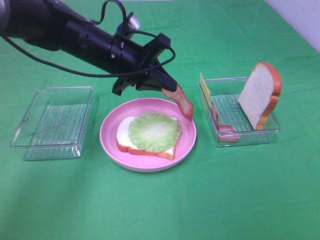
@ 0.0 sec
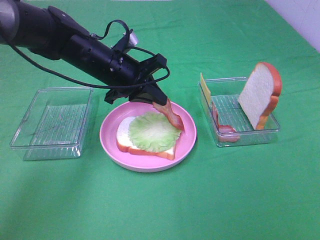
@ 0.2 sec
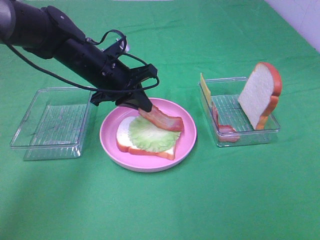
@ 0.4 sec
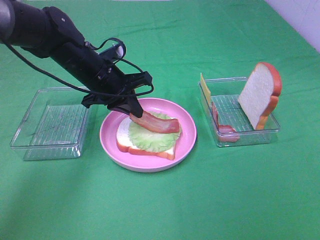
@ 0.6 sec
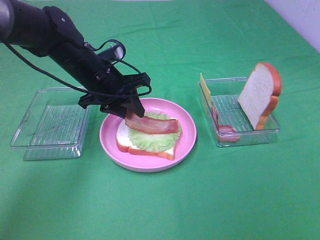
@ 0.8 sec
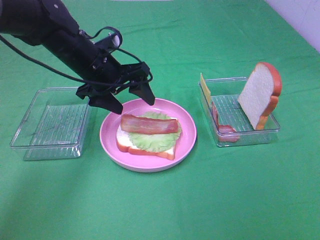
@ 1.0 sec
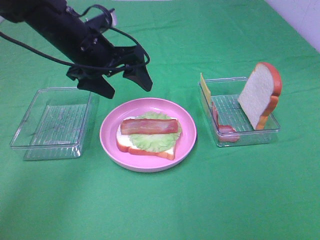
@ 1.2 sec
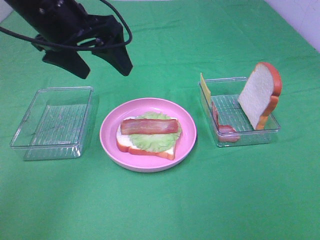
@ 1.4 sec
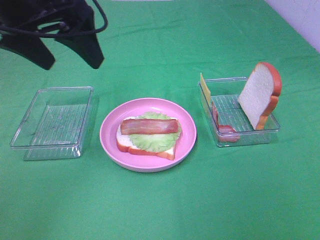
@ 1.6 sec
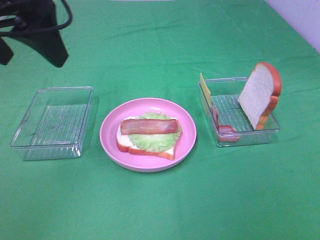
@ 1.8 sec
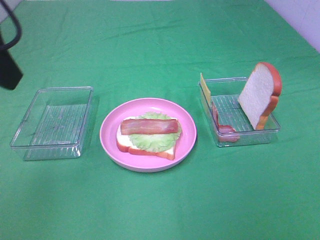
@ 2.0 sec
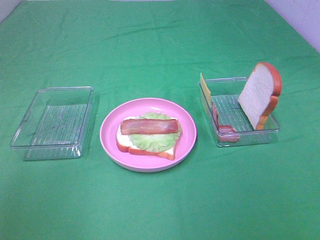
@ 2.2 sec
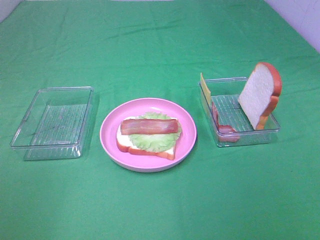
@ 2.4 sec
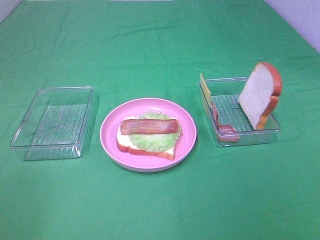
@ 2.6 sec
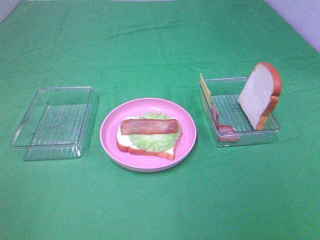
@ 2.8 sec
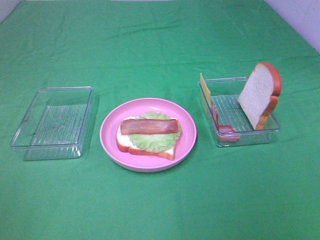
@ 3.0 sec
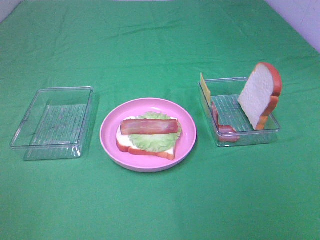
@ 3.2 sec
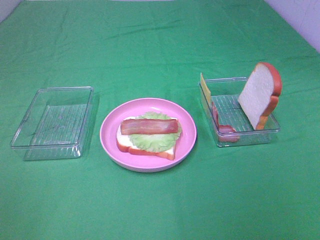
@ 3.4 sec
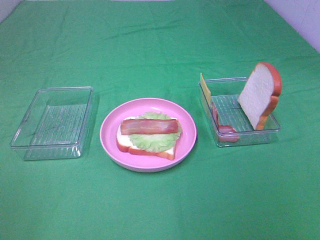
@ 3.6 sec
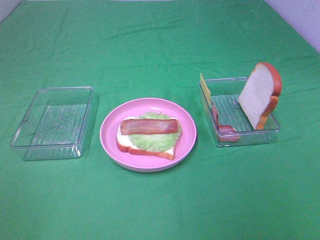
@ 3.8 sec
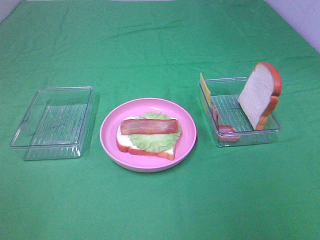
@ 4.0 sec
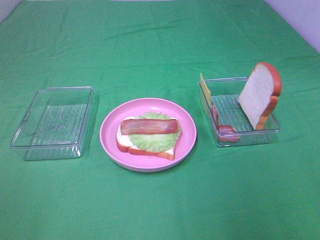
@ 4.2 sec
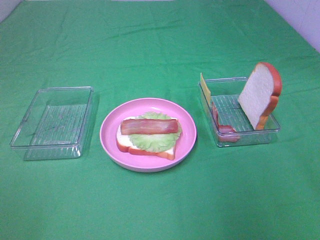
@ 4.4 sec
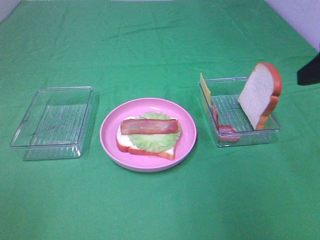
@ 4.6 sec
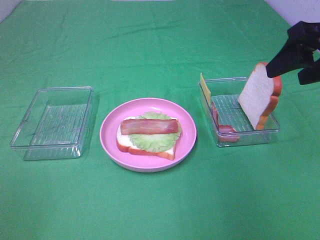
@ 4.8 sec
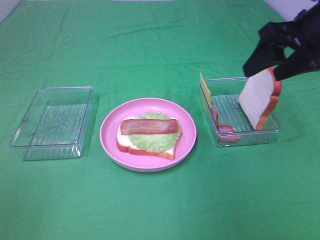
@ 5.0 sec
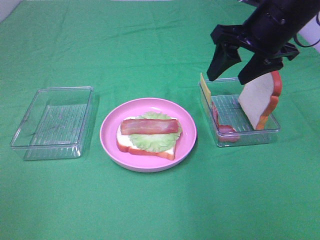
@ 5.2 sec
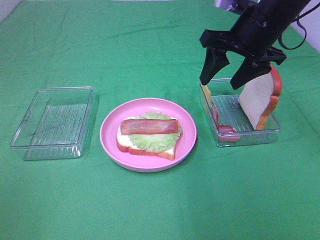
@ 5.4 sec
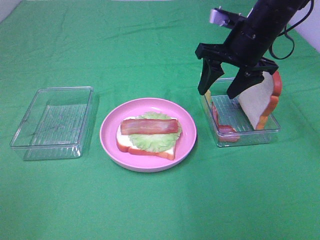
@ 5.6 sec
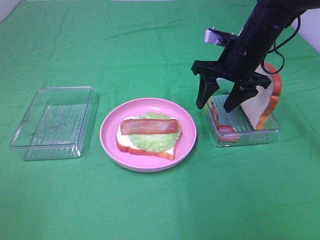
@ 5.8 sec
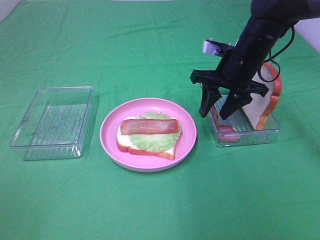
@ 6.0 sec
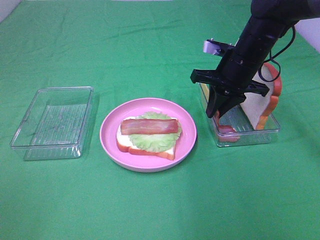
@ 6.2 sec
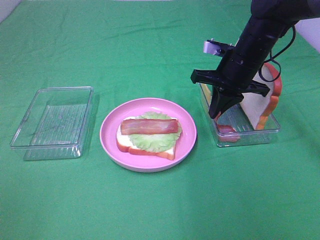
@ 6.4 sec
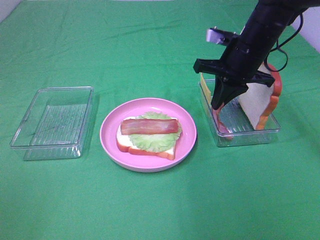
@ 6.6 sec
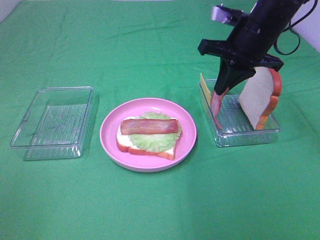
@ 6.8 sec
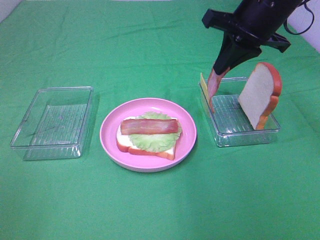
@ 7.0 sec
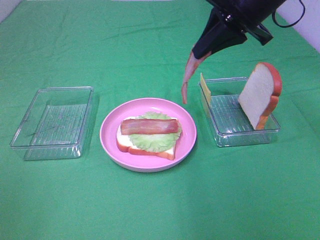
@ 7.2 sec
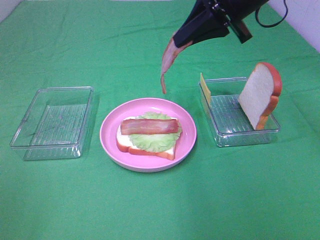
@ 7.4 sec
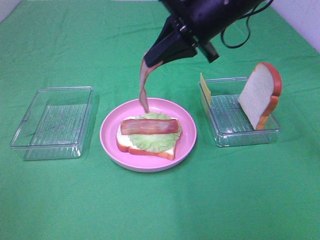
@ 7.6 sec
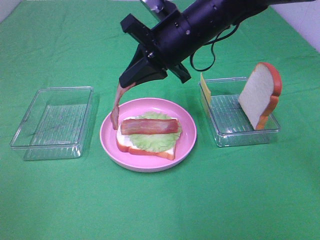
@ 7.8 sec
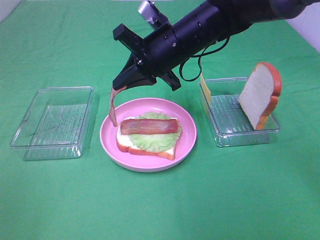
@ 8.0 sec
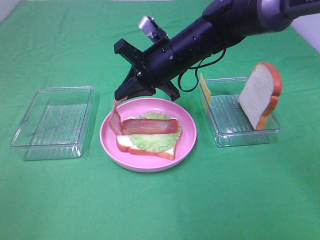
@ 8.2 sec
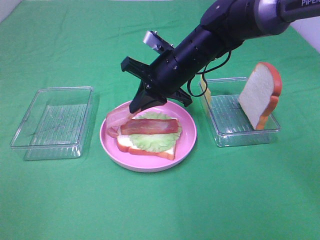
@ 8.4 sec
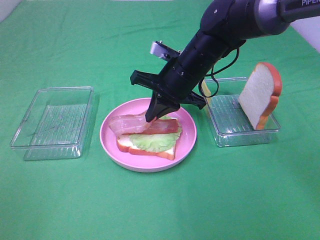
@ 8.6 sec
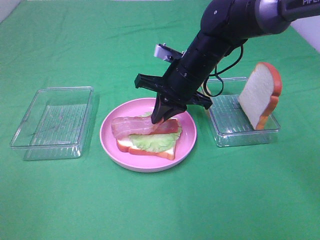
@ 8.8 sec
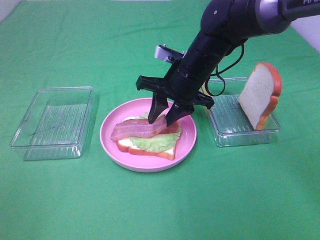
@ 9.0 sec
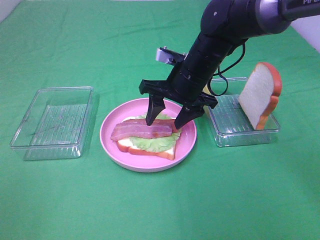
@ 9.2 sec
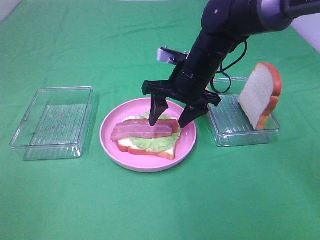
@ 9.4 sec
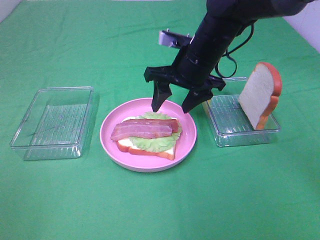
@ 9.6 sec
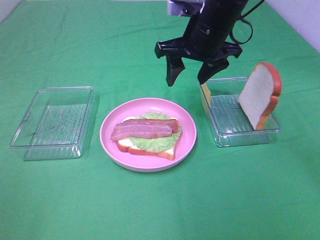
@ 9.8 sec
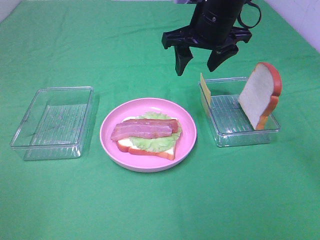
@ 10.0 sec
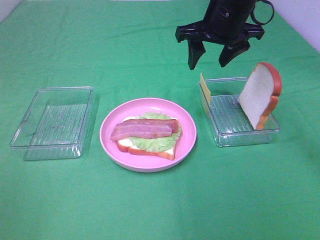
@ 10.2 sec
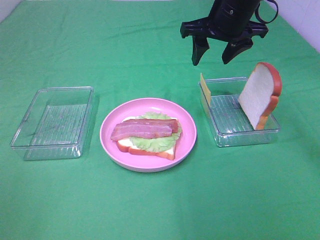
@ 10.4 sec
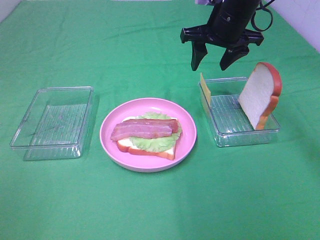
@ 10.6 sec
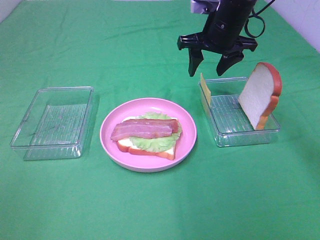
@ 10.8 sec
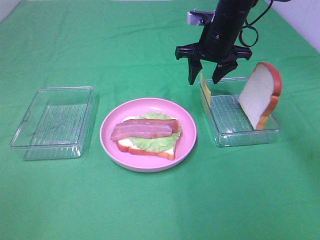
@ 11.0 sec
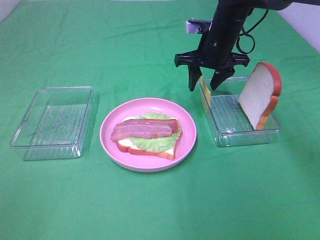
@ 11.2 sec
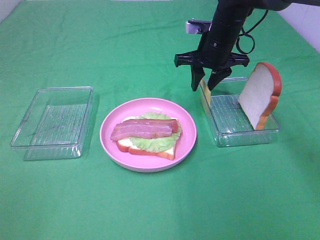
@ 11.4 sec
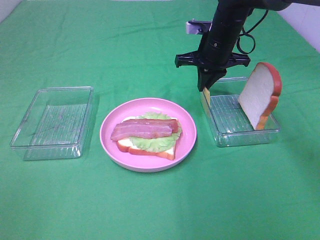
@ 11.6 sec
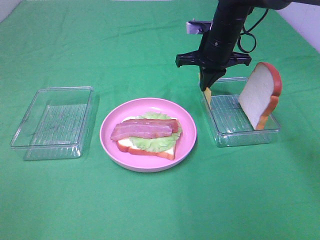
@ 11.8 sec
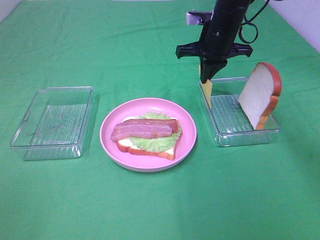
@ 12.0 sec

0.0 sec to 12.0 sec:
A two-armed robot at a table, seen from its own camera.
Task of the whole recording: Make sandwiches.
Step, 1.2 sec to 6.4 sec: Right hand:grab the bacon.
Step, 6.6 sec to 9.4 sec: Right hand:place bacon on bacon.
Step, 9.6 sec to 12.0 sec: Right hand:grab the cheese slice.
0.0 sec to 1.6 sec: The left gripper travels upward, to the left and backward by roughly 20 cm, and opens.
1.6 sec to 3.0 sec: The left gripper is displaced backward and to the left by about 35 cm.
4.4 sec to 6.0 sec: The right gripper goes some 30 cm forward, downward and to the left.
6.0 sec to 7.6 sec: The right gripper moves upward and to the left, about 15 cm, and closes its fingers.
7.6 sec to 9.0 sec: The right gripper goes roughly 10 cm downward, and opens its fingers.
9.0 sec to 10.4 sec: The right gripper heads upward and to the right, covering about 10 cm.
10.4 sec to 12.0 sec: The right gripper heads downward, covering about 5 cm, and closes its fingers.

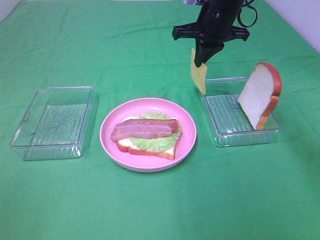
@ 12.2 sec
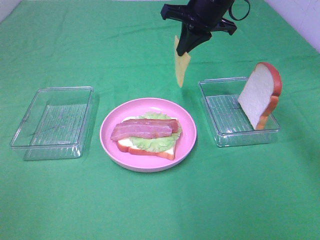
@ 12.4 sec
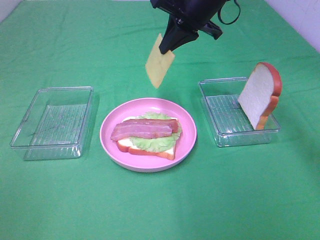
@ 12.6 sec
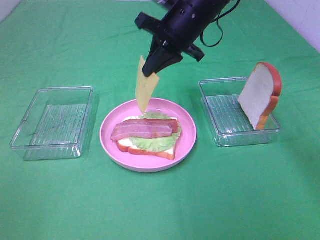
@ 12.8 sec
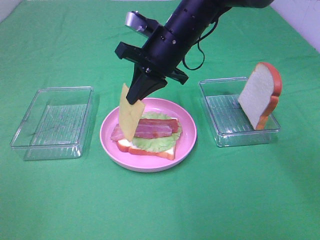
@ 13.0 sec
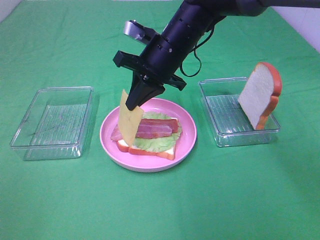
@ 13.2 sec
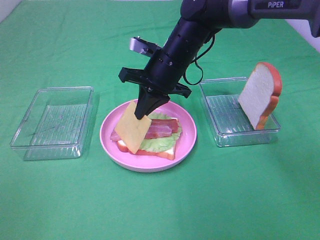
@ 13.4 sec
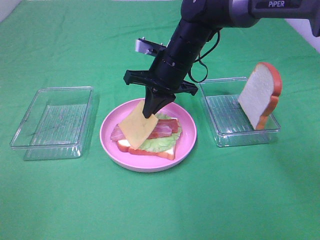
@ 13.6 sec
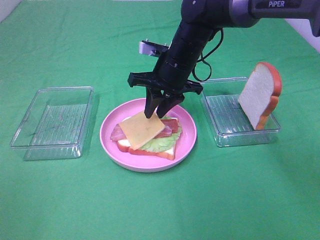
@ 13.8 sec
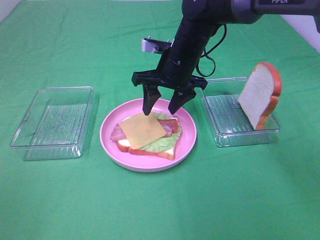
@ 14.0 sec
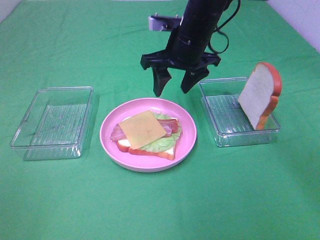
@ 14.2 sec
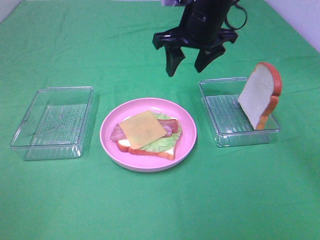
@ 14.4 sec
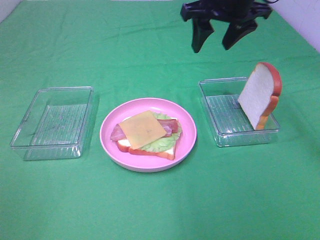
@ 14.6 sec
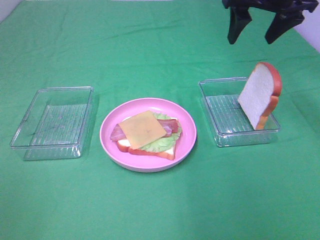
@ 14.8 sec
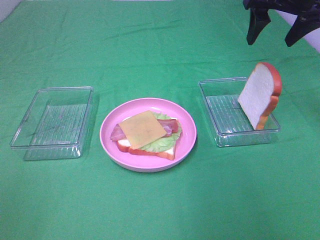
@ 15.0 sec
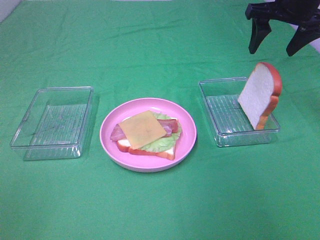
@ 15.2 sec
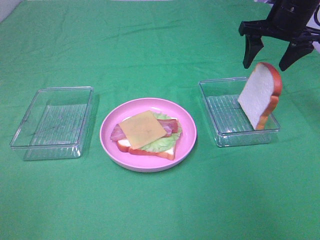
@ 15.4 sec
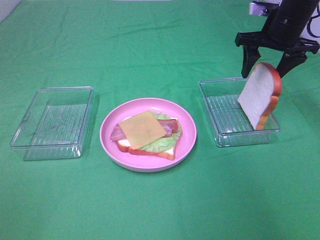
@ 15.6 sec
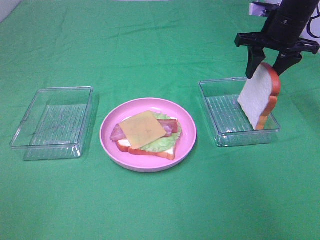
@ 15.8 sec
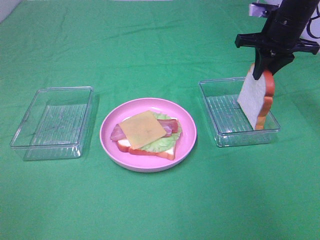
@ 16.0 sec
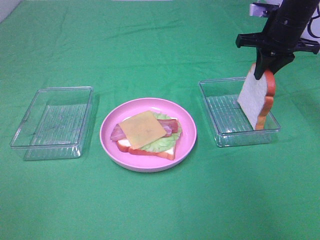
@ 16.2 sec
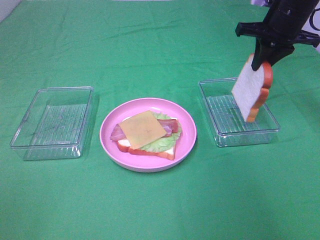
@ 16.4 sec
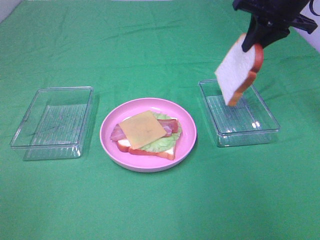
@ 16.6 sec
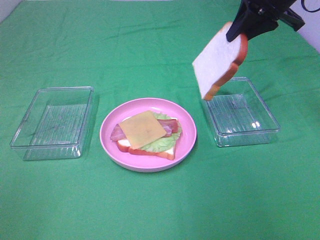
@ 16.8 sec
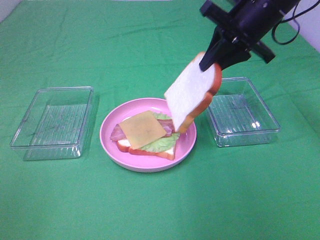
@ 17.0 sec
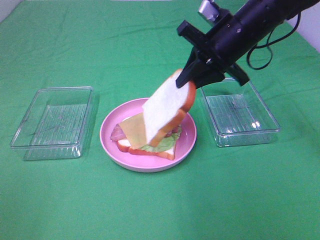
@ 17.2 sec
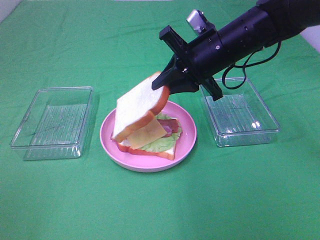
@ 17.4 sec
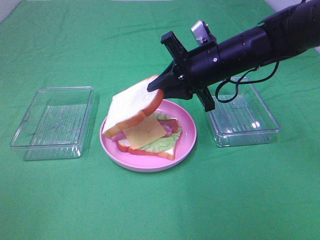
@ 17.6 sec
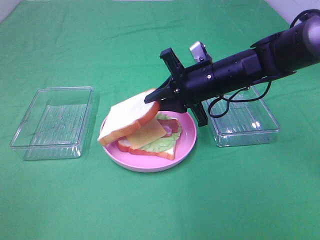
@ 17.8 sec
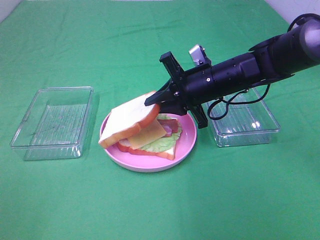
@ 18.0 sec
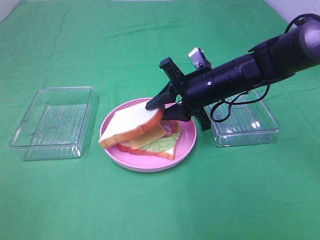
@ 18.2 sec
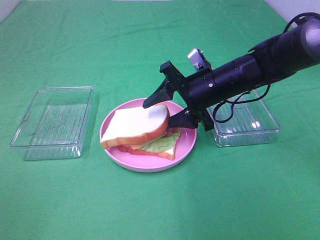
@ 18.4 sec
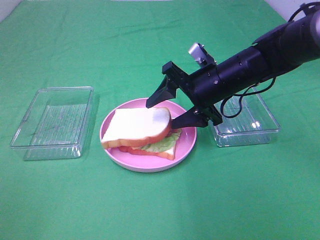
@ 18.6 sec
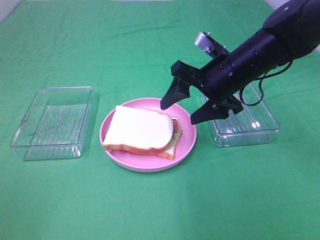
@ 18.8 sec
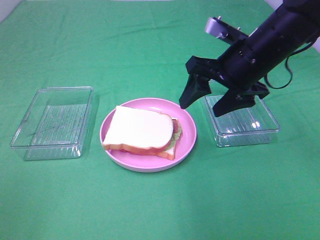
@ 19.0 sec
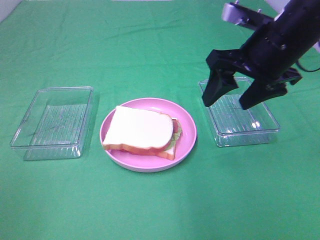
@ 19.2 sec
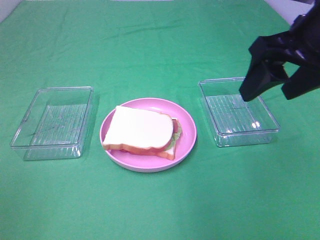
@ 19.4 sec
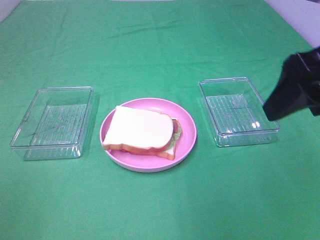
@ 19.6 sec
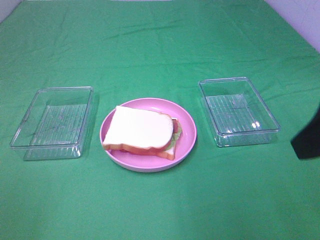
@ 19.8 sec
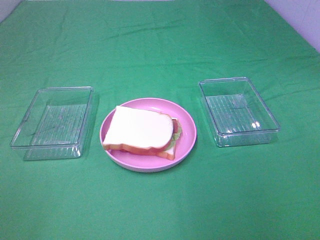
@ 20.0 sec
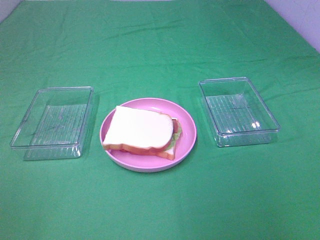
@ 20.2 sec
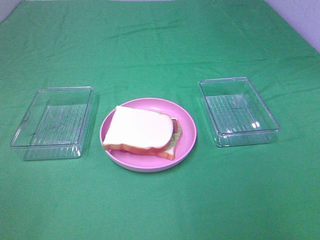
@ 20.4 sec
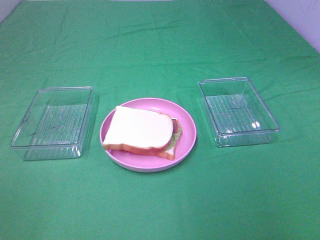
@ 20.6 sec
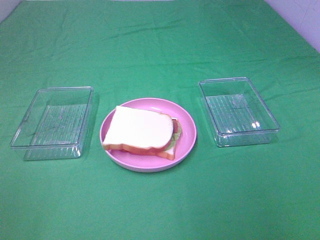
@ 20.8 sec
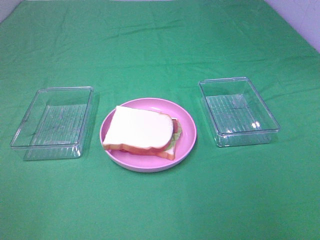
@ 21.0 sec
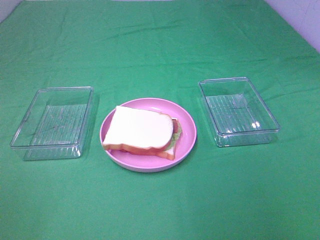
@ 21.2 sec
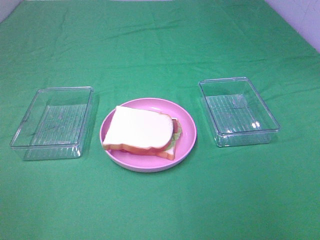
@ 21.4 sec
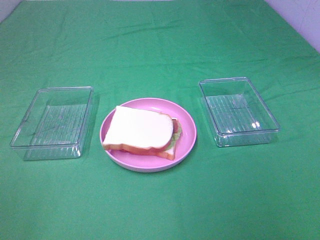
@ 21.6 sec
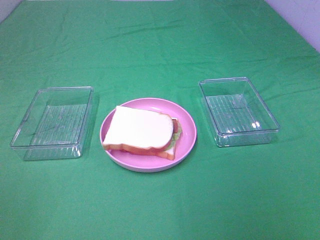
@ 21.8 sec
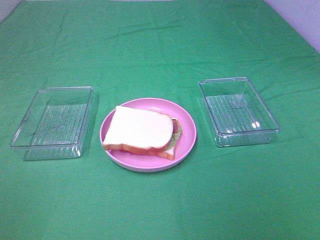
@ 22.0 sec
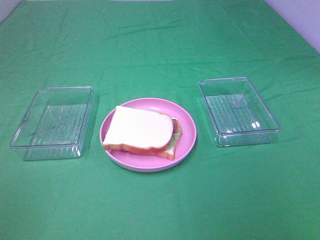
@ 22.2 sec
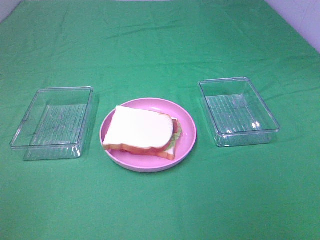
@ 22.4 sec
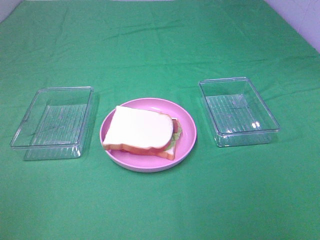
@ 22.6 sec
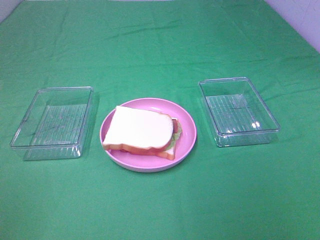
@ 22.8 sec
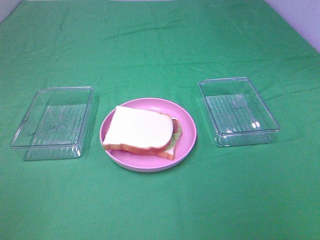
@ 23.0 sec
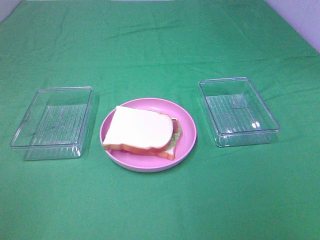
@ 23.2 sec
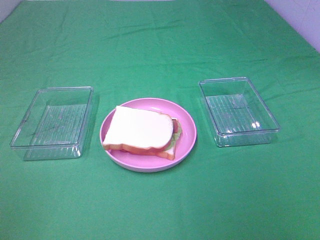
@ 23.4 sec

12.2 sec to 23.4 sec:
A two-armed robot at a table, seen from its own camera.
Task of the whole recording: Make sandwiches.
Step, 12.2 sec to 14.0 sec: Right hand:place the cheese slice on top of the bacon.
Step, 14.2 sec to 16.2 sec: Right hand:grab the bread slice.
Step, 16.4 sec to 18.8 sec: Right hand:place the bread slice on the cheese slice.
12.2 sec to 13.8 sec: The right gripper goes approximately 10 cm downward, to the left and backward, and opens its fingers.
13.8 sec to 15.4 sec: The right gripper heads to the right and upward, covering roughly 20 cm, and opens its fingers.
15.4 sec to 17.0 sec: The right gripper moves to the left and backward, approximately 10 cm, and closes up.
17.0 sec to 18.6 sec: The right gripper goes approximately 10 cm downward, and opens up.
18.6 sec to 20.2 sec: The right gripper is displaced backward, to the right and upward by approximately 35 cm.
